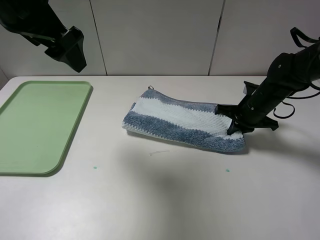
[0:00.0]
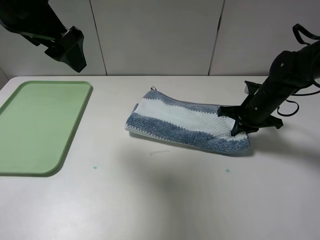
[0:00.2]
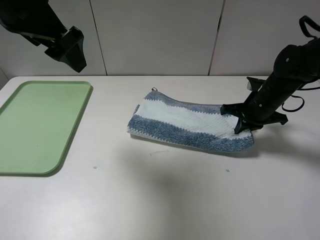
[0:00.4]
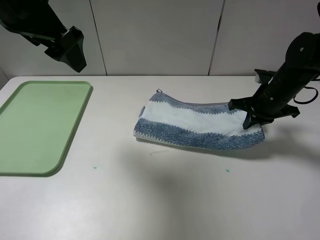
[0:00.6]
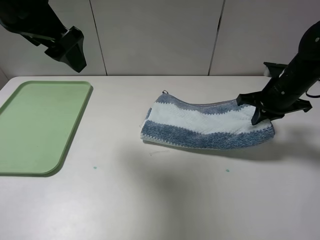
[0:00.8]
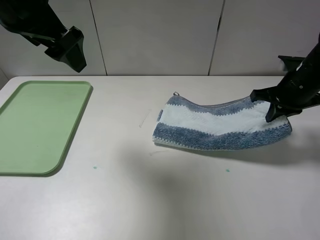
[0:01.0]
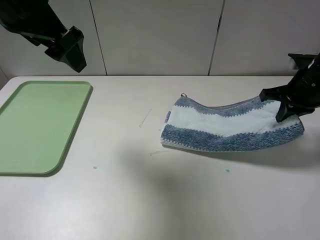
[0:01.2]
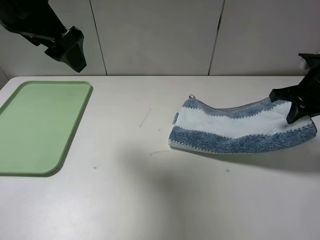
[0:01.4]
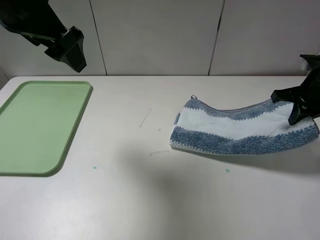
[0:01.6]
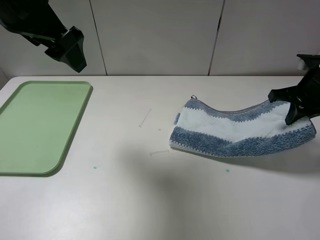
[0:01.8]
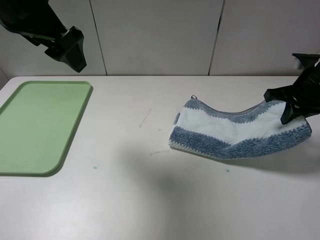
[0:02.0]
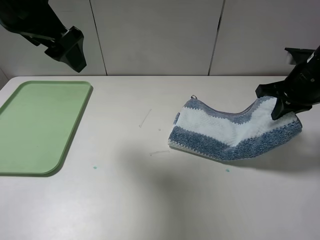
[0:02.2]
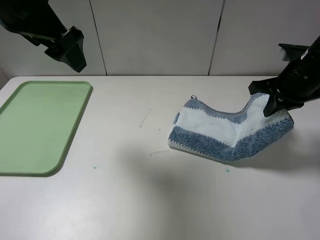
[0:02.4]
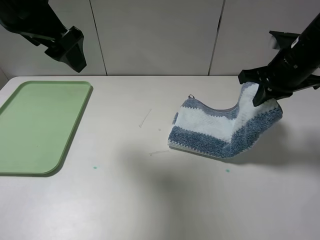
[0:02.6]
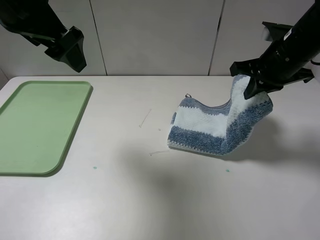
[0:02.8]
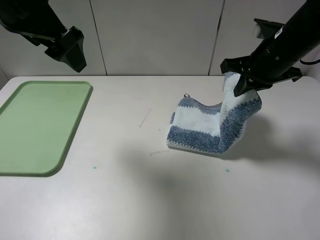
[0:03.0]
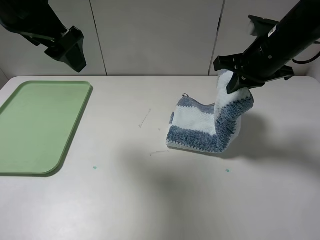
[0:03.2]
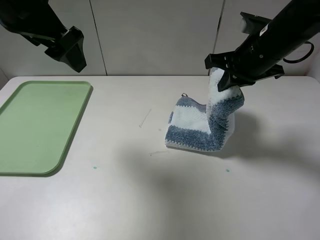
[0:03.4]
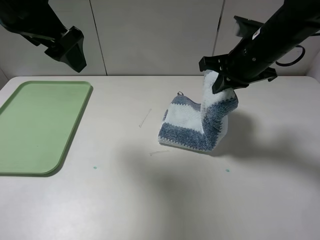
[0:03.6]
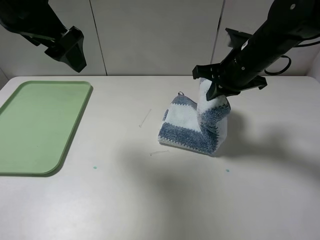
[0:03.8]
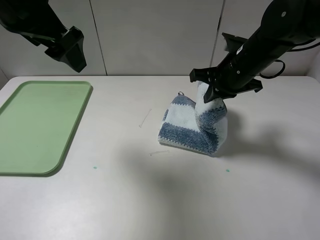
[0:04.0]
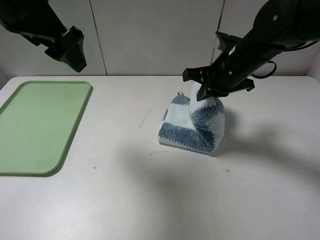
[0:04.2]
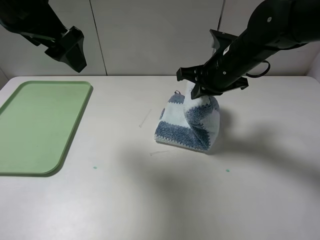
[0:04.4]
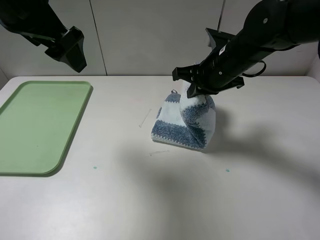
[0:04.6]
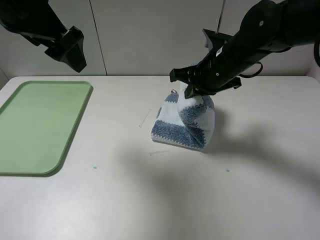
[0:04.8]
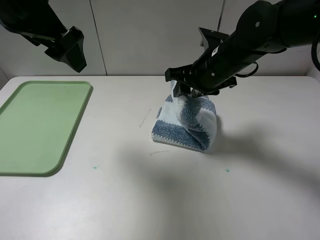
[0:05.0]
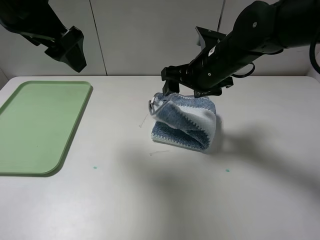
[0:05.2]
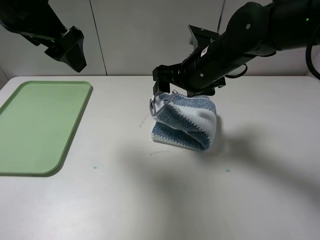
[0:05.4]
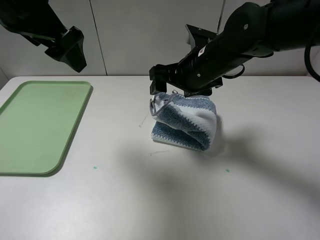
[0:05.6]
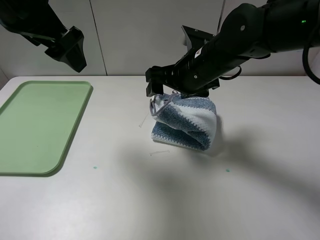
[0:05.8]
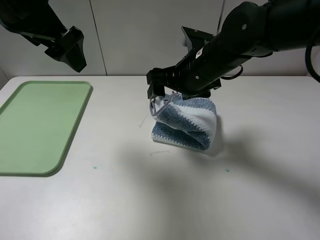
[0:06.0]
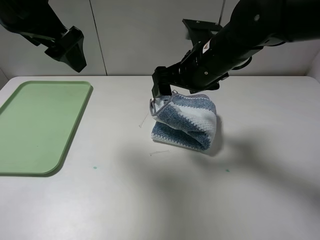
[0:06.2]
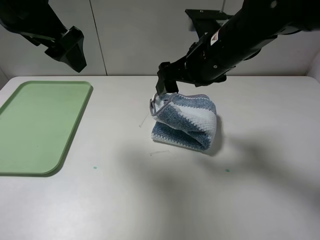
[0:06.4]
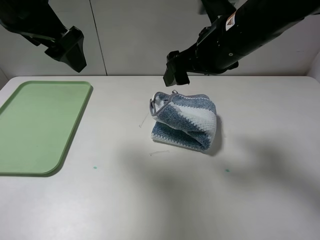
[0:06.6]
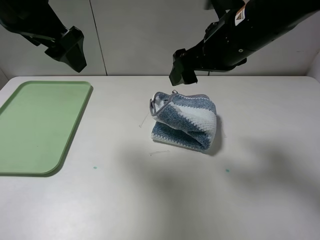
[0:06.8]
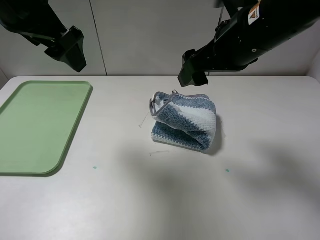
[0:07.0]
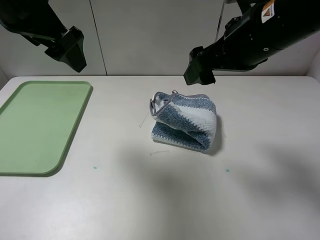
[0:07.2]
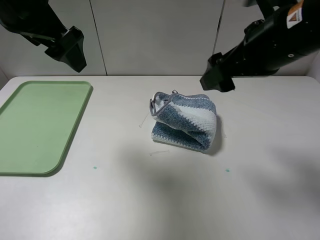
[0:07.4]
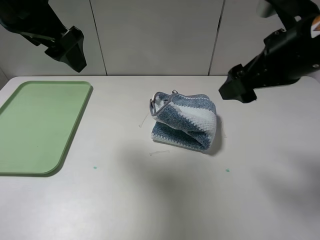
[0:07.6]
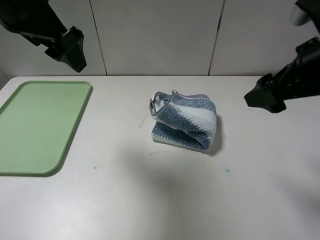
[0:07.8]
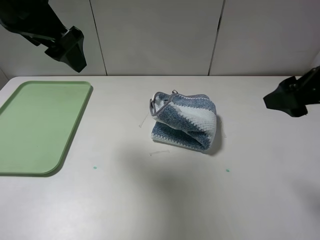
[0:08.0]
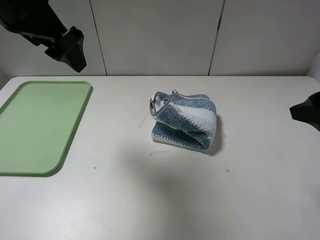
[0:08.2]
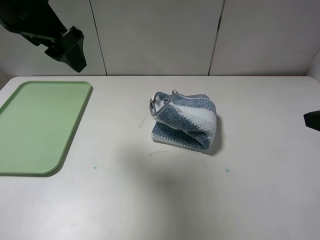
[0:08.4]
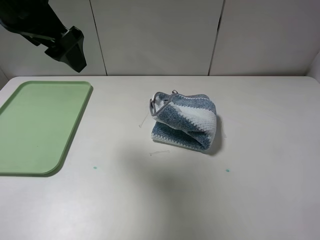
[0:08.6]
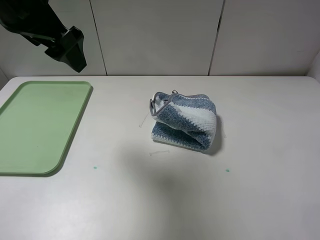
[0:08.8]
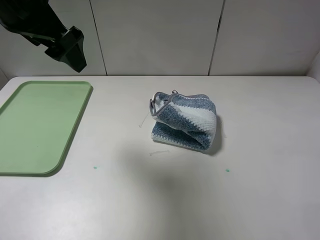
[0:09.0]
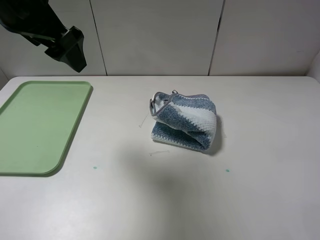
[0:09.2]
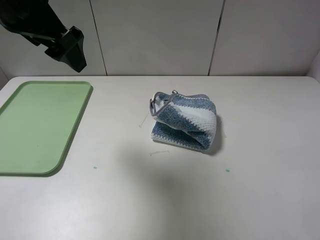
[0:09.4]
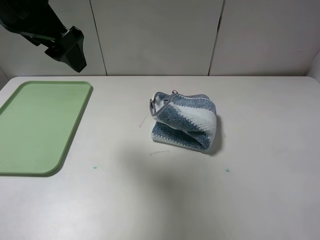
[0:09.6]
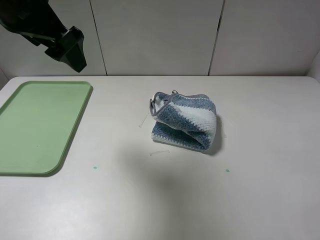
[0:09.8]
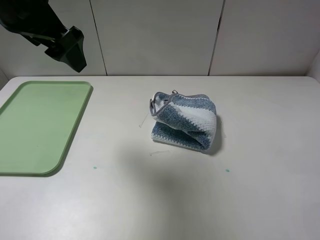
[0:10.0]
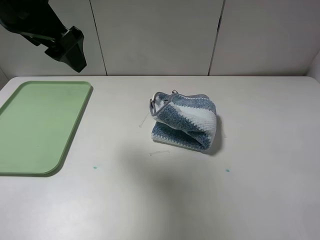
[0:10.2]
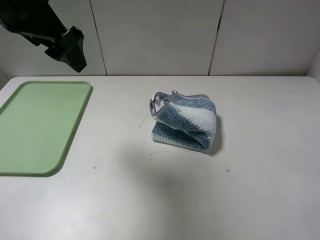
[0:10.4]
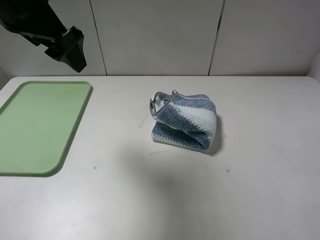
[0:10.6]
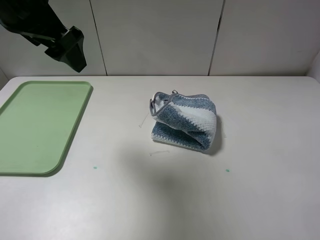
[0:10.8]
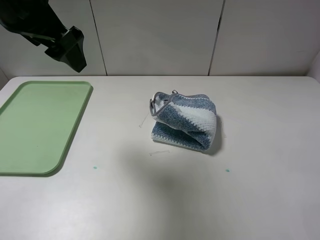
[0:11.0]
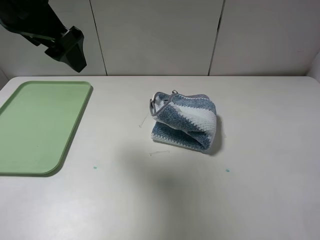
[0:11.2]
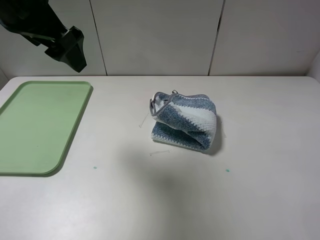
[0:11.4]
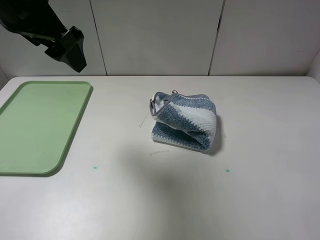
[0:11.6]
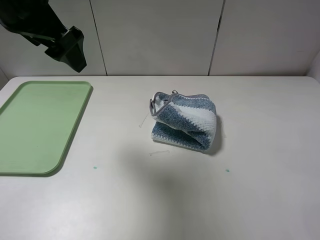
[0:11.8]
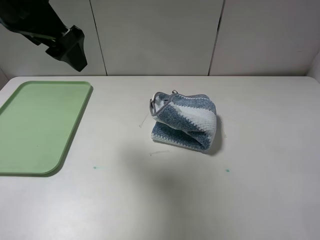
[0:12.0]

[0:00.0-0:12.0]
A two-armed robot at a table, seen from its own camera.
Step, 0:00.0 to 0:06.8: Fold the blue white towel from right to left with right gripper.
0:00.0 to 0:01.6: The right gripper shifts about 15 cm upward and to the right.
0:01.6 to 0:03.0: The right gripper is displaced to the left by some 10 cm.
0:03.0 to 0:04.4: The right gripper heads to the left, covering about 5 cm.
0:04.4 to 0:06.0: The right gripper travels to the left by approximately 5 cm, and opens up.
0:06.0 to 0:07.6: The right gripper heads to the right, backward and upward, covering some 15 cm.
0:07.6 to 0:09.0: The right gripper goes some 20 cm backward and to the right.
0:10.4 to 0:12.0: Both grippers stay put.

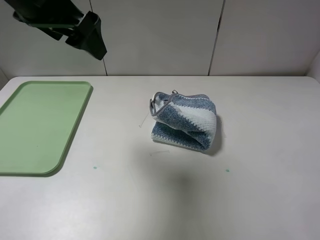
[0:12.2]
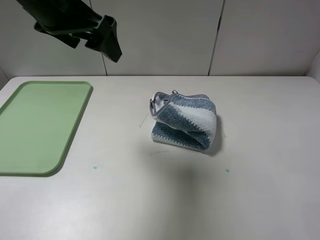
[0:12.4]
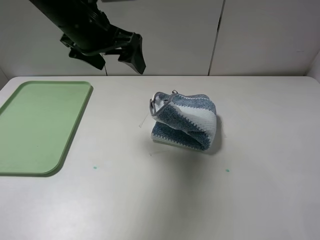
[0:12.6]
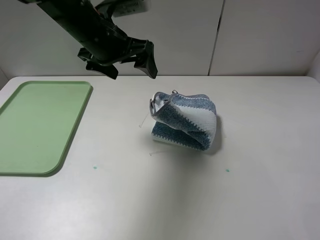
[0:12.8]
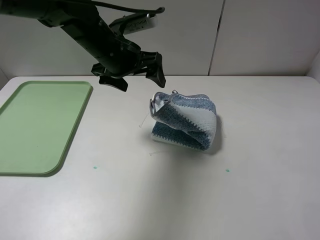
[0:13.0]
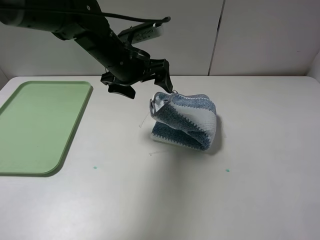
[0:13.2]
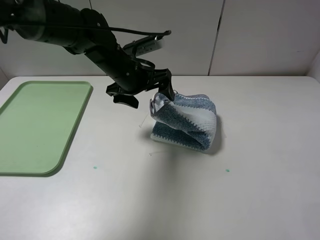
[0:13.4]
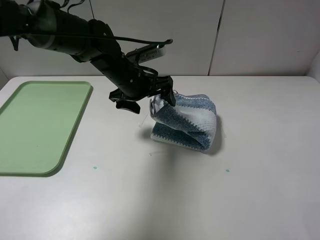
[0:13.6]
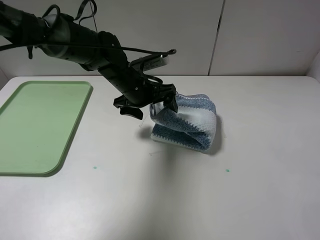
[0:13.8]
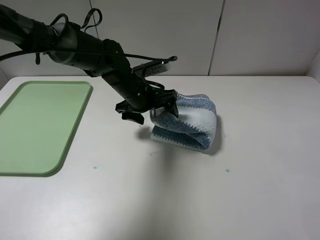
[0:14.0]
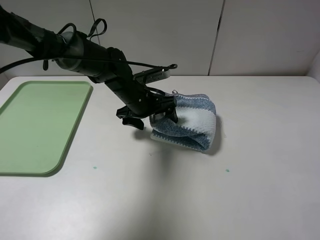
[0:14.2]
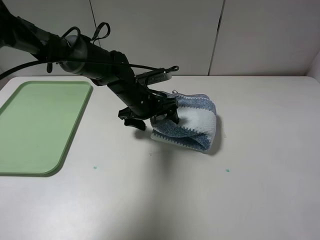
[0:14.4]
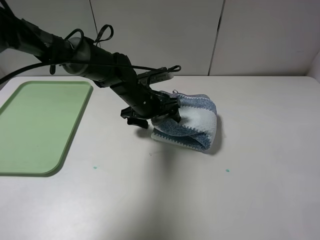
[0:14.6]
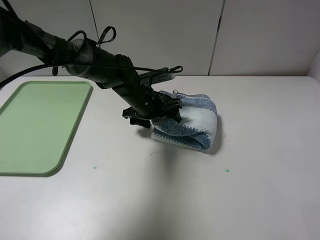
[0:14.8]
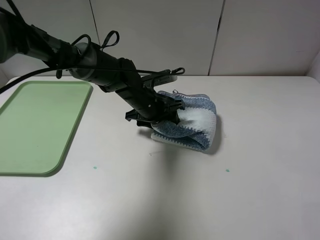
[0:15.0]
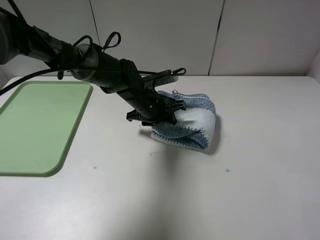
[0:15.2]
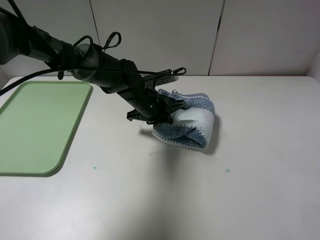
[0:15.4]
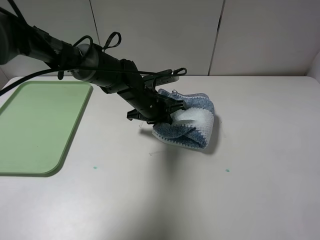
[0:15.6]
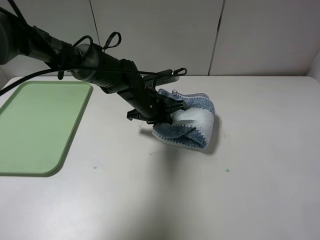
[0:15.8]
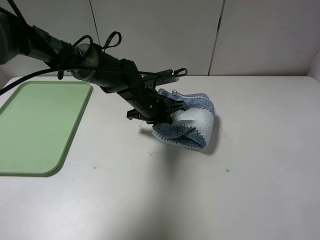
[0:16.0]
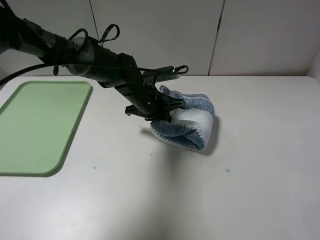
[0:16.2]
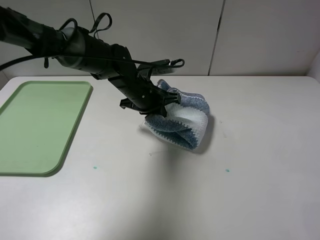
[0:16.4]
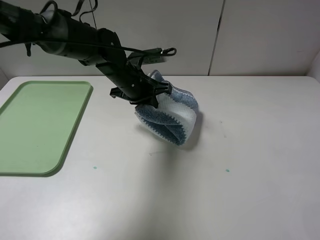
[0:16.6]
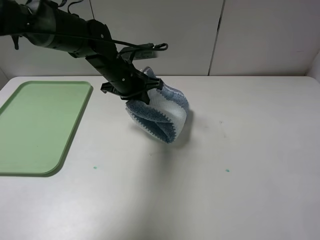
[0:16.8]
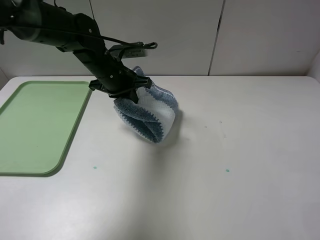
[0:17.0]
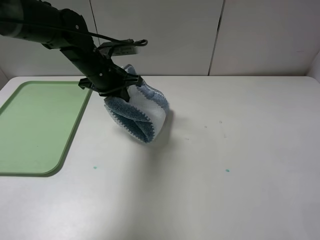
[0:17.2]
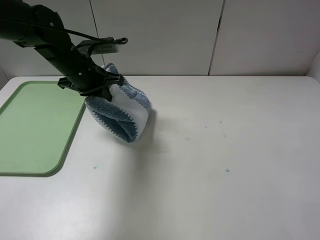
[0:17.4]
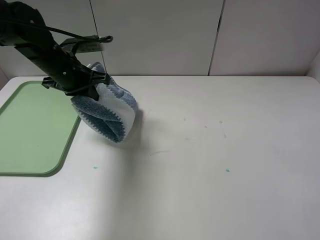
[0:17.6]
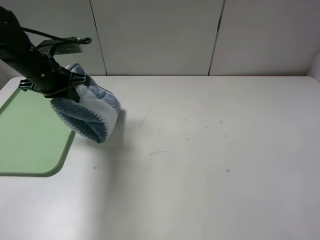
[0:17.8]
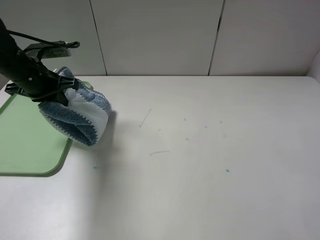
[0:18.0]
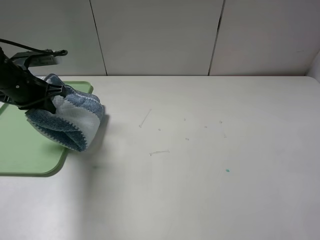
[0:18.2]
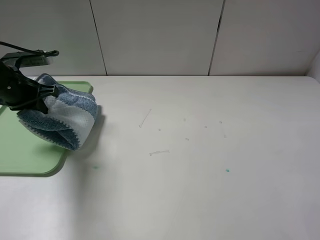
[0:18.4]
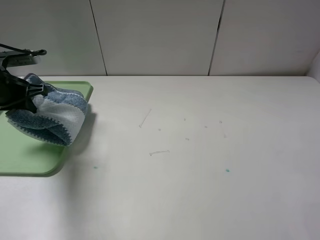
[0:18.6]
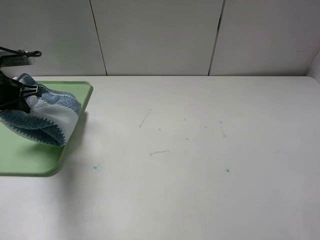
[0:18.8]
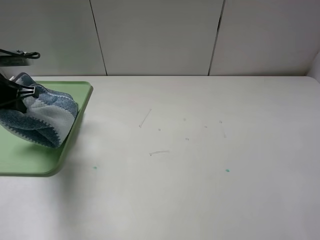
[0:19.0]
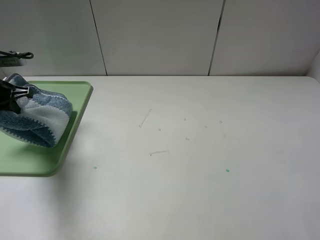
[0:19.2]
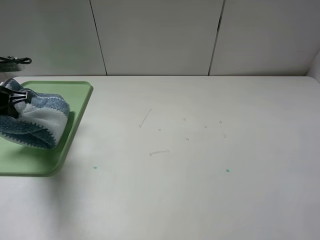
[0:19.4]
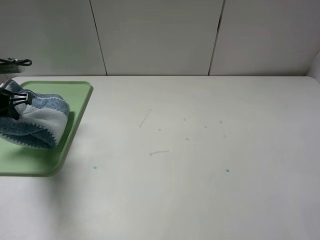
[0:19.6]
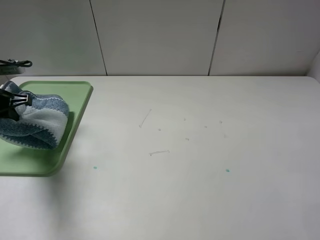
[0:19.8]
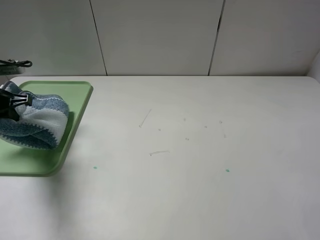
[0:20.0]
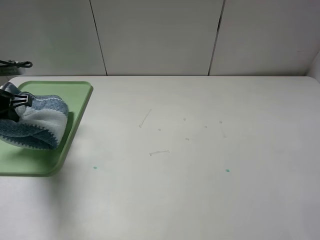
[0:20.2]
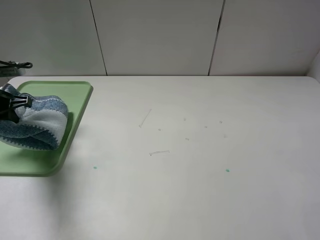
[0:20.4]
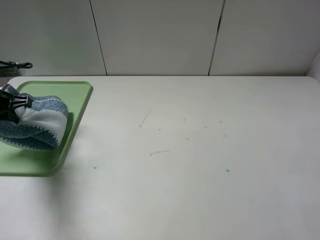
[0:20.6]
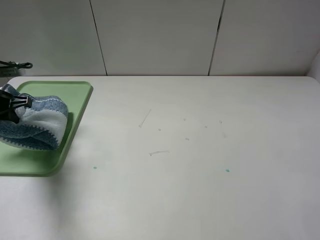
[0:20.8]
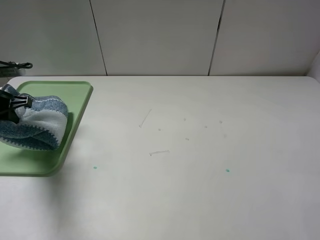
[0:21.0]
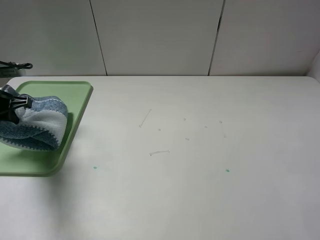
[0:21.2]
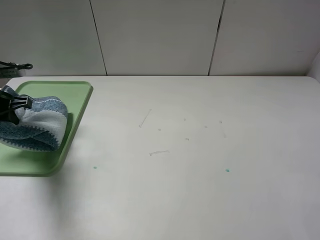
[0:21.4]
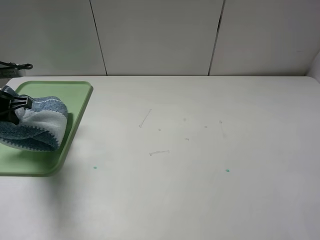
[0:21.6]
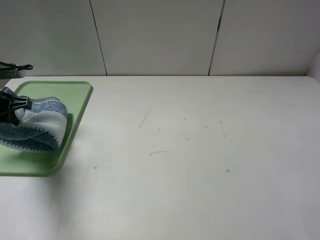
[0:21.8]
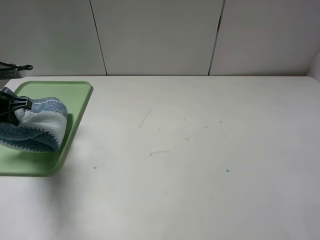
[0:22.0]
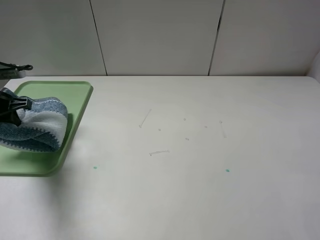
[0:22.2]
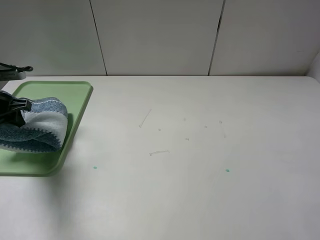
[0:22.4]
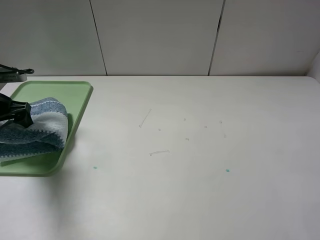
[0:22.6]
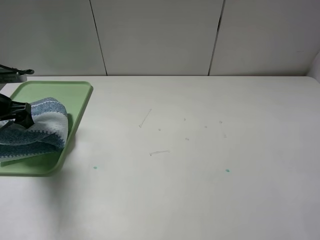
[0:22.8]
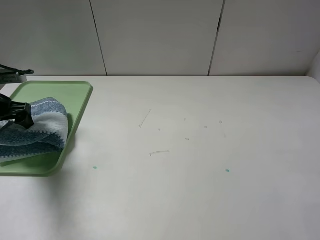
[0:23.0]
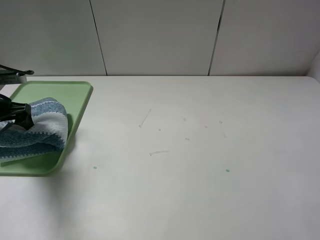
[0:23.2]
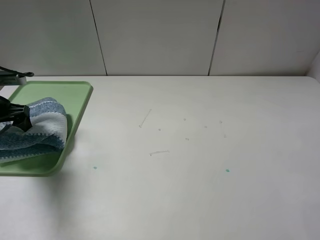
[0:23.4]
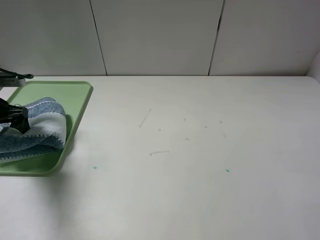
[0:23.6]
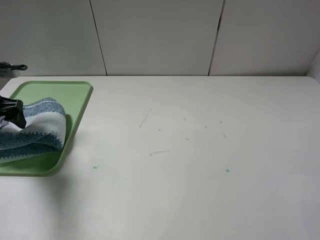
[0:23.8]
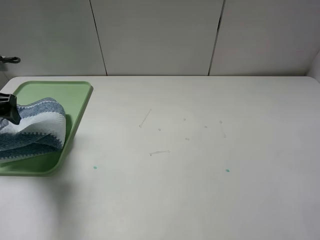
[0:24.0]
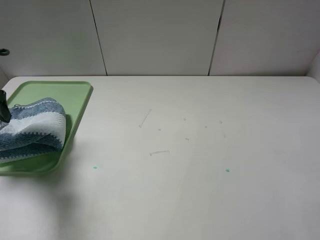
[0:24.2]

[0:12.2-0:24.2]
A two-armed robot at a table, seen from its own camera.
Step, 0:12.2 to 0:15.6: Grasp the blue white towel with the left gripper.
0:12.2 to 0:13.8: The left gripper is displaced downward and to the right by some 25 cm.
0:13.8 to 0:15.2: The left gripper ends up roughly 5 cm from where it was, and closes up.
0:15.2 to 0:16.6: The left gripper goes roughly 5 cm upward.
0:16.6 to 0:18.2: The left gripper heads to the left, covering some 20 cm.
0:18.2 to 0:19.8: The left gripper travels to the left by about 5 cm.
0:19.8 to 0:21.2: The two grippers keep their place.
0:21.2 to 0:22.6: The left gripper opens.
0:22.6 to 0:24.2: The left gripper goes about 5 cm upward.
